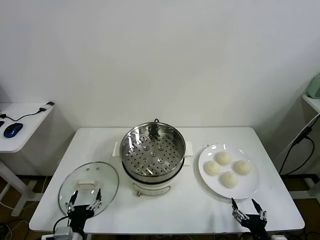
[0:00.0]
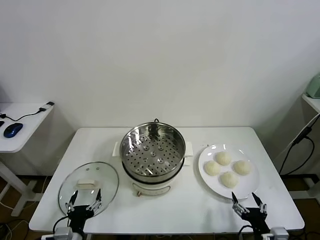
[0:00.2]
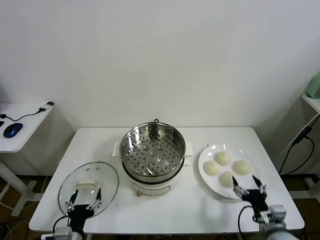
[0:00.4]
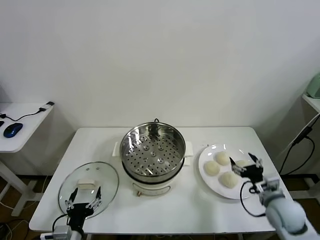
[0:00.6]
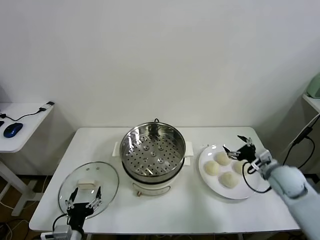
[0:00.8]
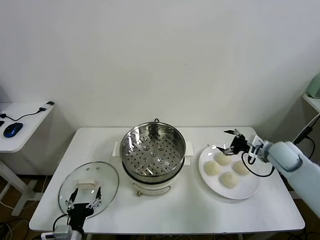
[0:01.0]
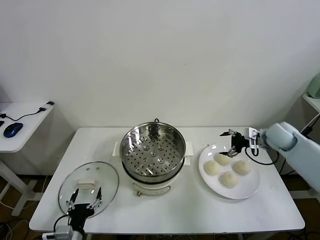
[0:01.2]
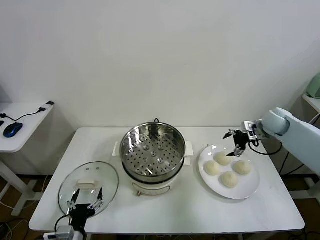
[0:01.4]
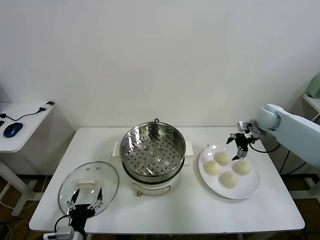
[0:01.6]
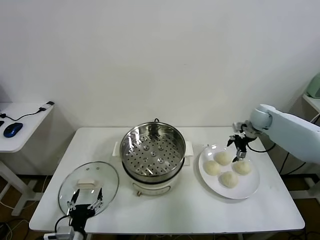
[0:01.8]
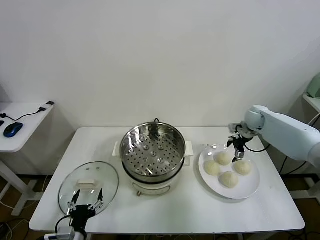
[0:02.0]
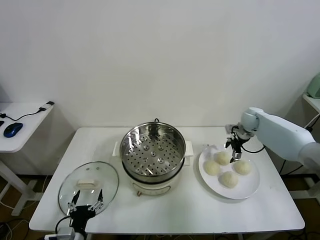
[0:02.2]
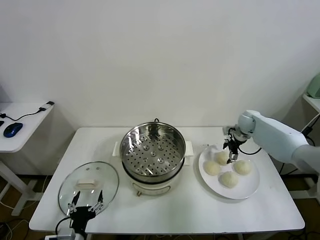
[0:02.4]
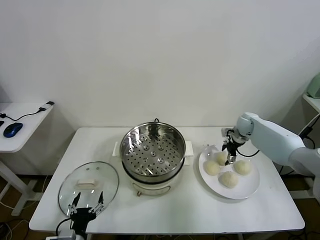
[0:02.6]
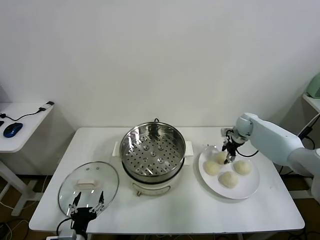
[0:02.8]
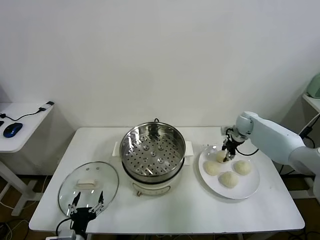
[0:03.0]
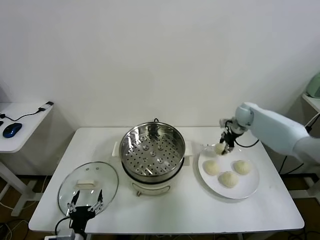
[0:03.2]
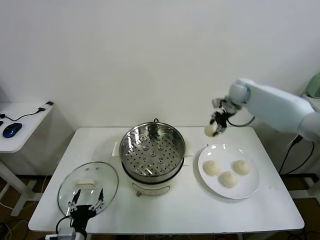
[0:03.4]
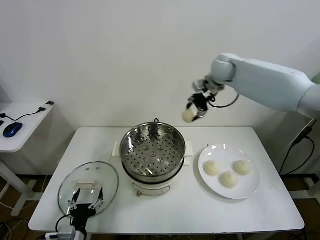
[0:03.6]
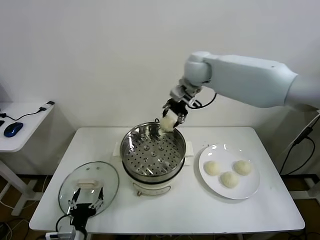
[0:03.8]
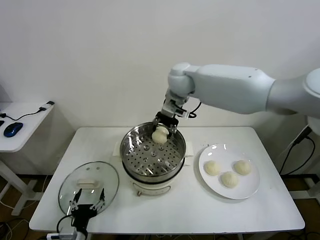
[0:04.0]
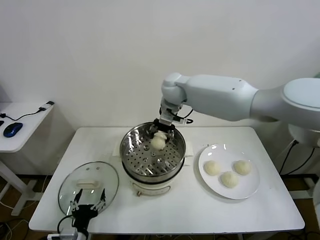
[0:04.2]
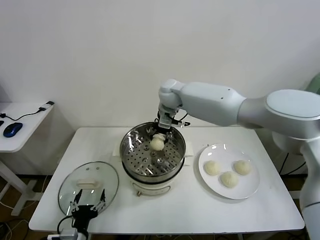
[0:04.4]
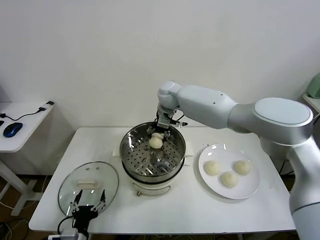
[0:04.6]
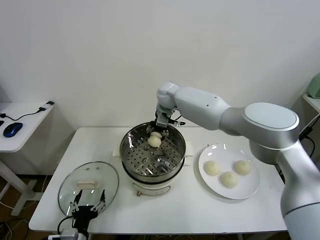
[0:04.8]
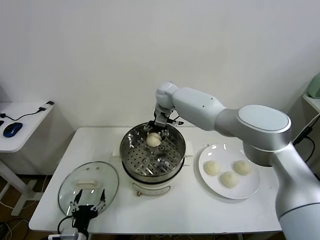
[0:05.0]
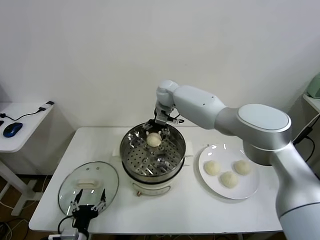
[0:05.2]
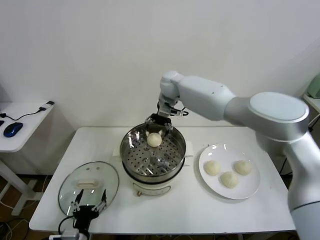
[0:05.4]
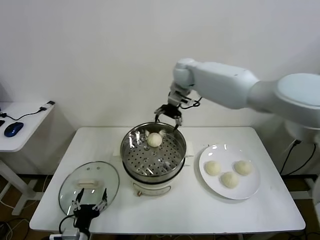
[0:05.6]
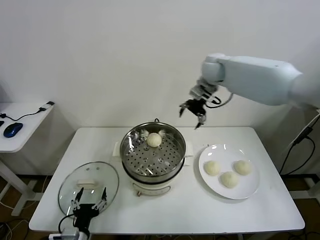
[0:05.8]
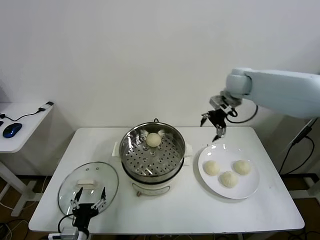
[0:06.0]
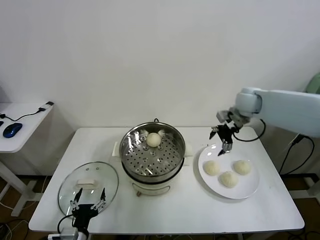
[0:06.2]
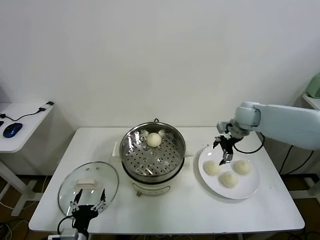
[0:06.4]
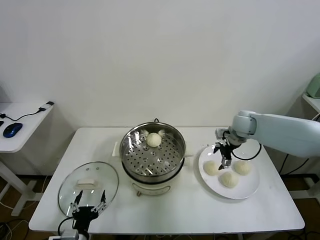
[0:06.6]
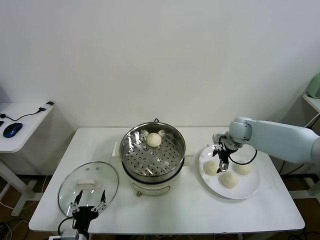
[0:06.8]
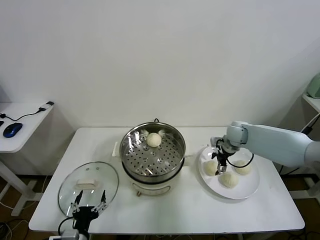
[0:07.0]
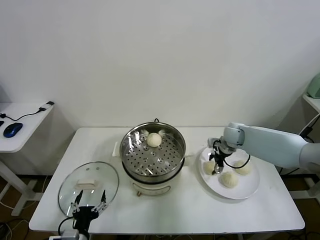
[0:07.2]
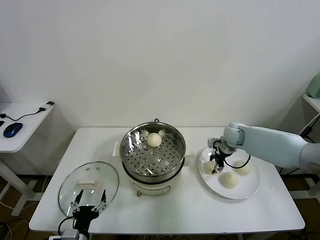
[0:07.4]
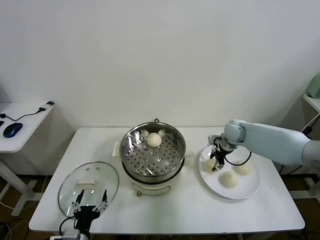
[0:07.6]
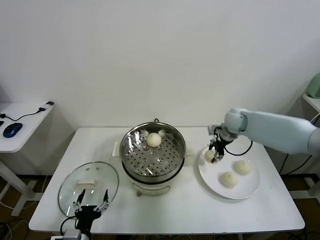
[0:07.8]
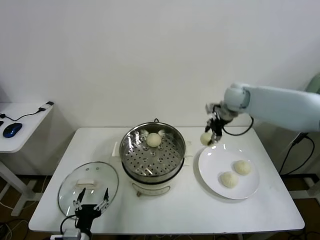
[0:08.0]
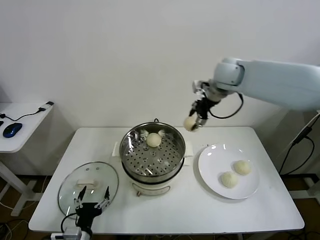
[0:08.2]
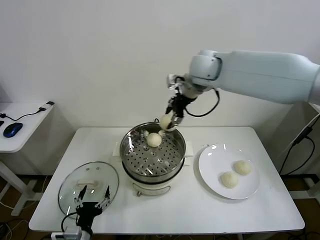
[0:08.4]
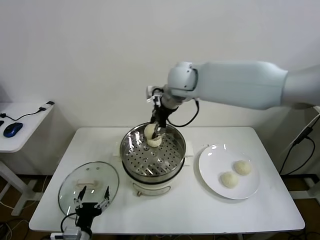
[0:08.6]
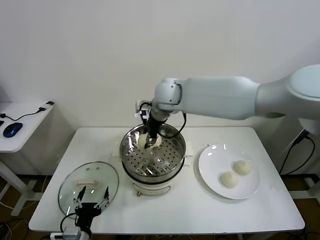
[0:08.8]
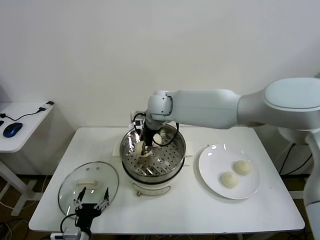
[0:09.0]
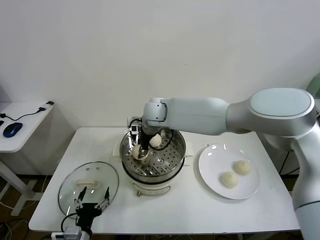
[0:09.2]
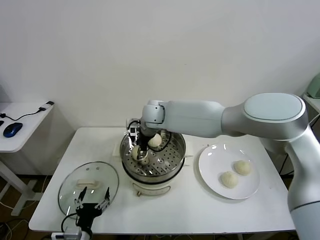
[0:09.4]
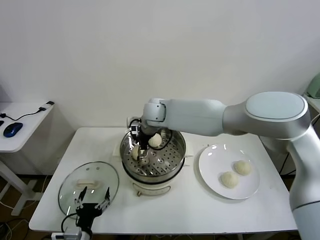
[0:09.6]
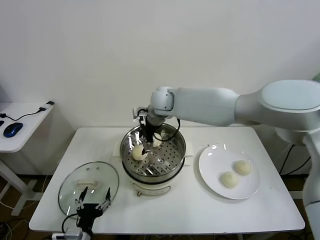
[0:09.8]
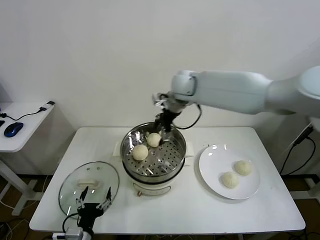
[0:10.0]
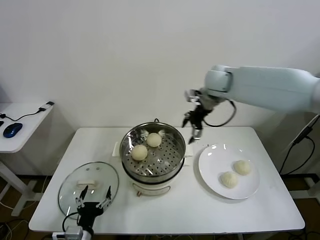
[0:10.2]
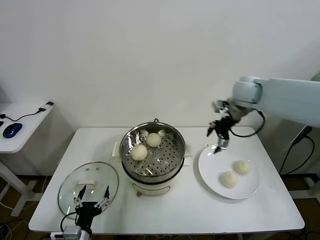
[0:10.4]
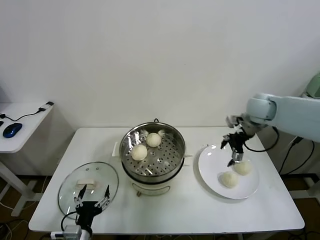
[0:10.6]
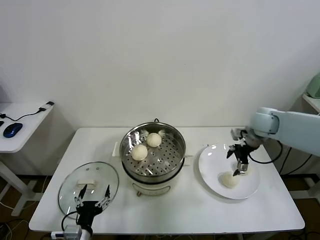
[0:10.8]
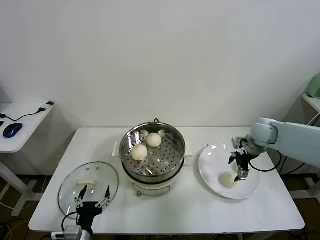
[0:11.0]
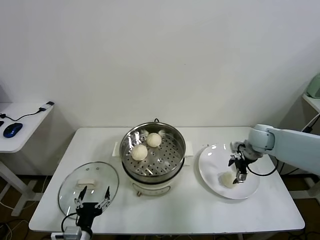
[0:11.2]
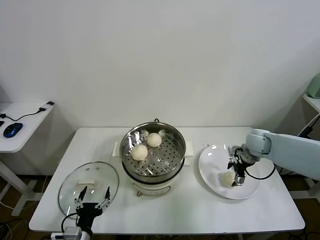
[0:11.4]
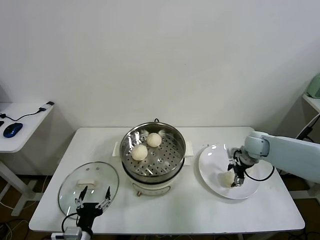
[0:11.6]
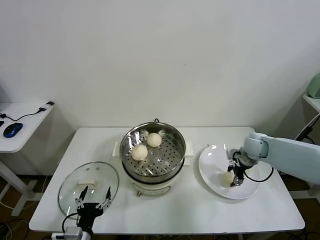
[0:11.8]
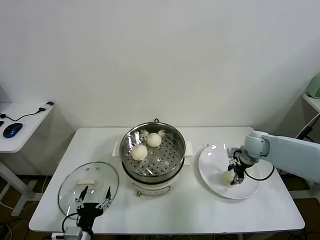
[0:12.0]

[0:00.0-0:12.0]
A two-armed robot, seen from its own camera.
Task of the whole recording: take steamed baozi put them in steamer.
Step, 0:00.0 to 0:02.8: Grasp the baozi in the plate with right gripper.
Step, 0:03.0 to 0:05.4: Place the baozi on the steamer with right gripper.
Step, 0:05.6 to 0:07.4: Grasp the baozi in the plate with right gripper.
Step, 0:07.6 to 0:09.8: Place the baozi on the steamer with right gripper.
Step, 0:10.0 to 0:12.0: Grasp the baozi in the plate with right gripper.
0:01.6 to 0:03.0: The right gripper shifts by some 5 cm, and closes its fingers.
0:03.0 to 0:04.4: The right gripper heads to the left and upward, covering about 35 cm.
0:04.4 to 0:06.0: The right gripper shifts roughly 25 cm to the right, and opens its fingers.
0:06.0 to 0:07.6: The right gripper shifts some 15 cm downward, and closes.
0:07.6 to 0:09.0: The right gripper moves to the left, approximately 30 cm.
0:09.0 to 0:10.4: The right gripper moves to the right, roughly 30 cm, and opens its fingers.
0:10.4 to 0:12.0: The right gripper moves downward, some 15 cm, and closes its fingers.

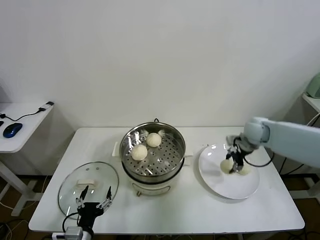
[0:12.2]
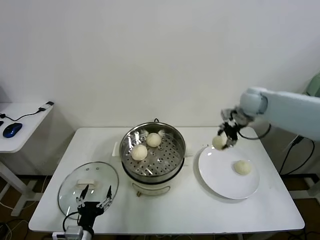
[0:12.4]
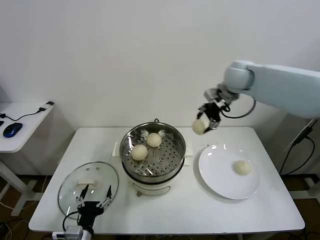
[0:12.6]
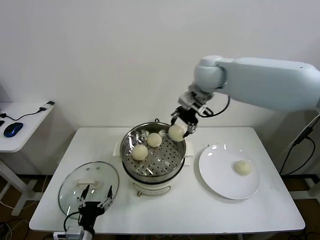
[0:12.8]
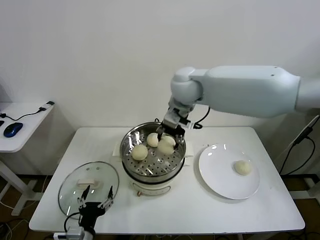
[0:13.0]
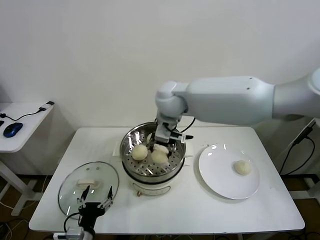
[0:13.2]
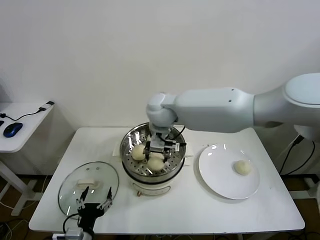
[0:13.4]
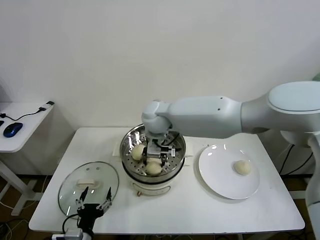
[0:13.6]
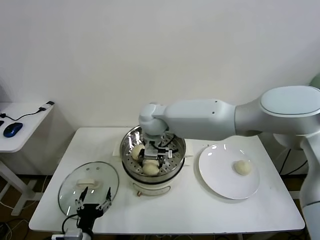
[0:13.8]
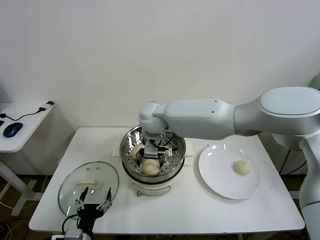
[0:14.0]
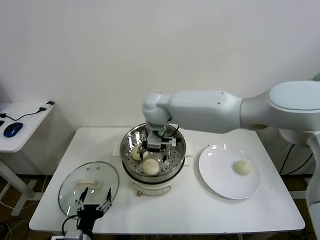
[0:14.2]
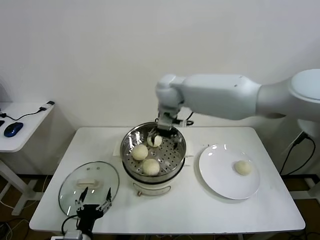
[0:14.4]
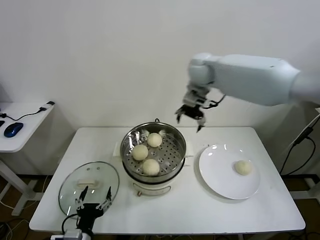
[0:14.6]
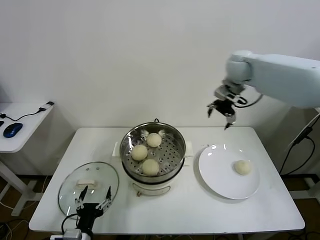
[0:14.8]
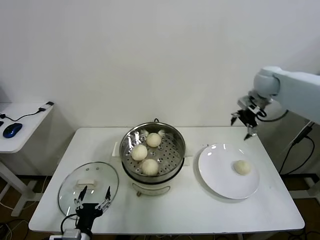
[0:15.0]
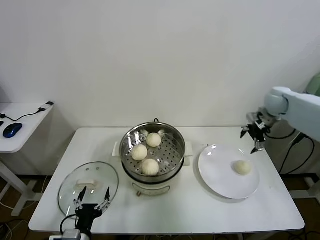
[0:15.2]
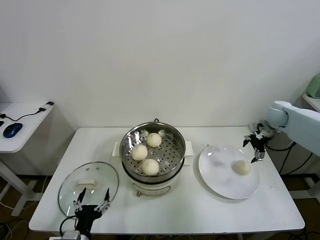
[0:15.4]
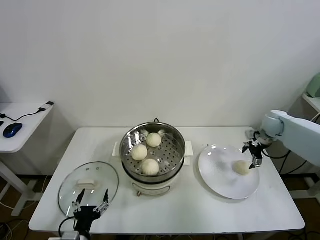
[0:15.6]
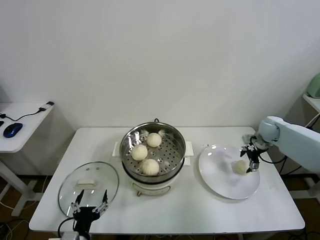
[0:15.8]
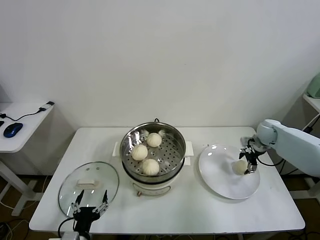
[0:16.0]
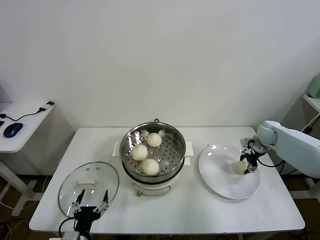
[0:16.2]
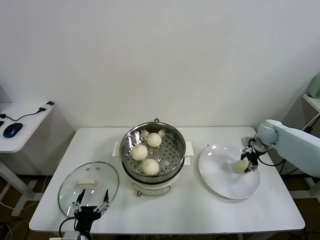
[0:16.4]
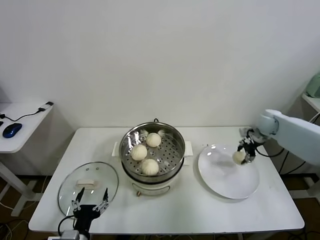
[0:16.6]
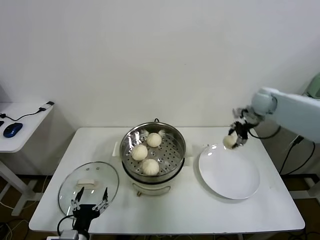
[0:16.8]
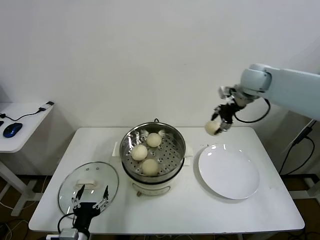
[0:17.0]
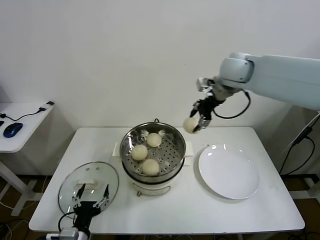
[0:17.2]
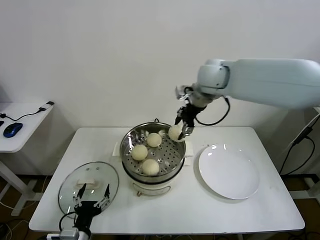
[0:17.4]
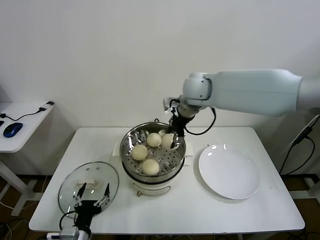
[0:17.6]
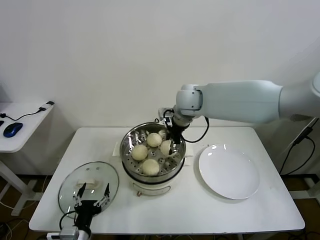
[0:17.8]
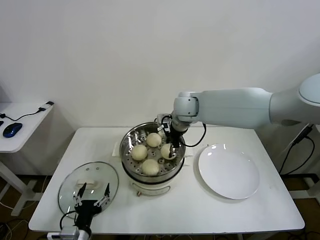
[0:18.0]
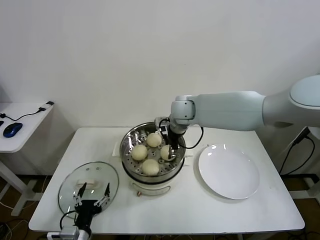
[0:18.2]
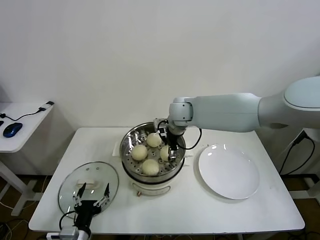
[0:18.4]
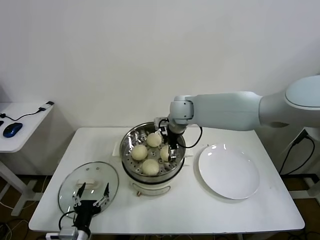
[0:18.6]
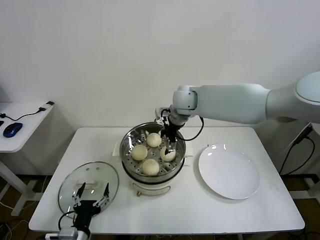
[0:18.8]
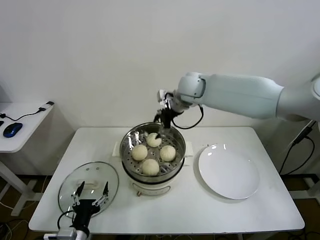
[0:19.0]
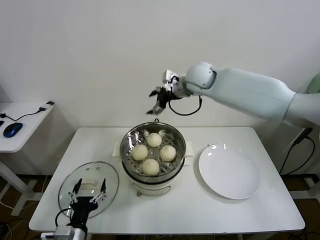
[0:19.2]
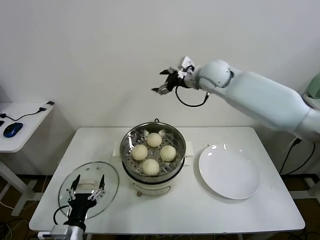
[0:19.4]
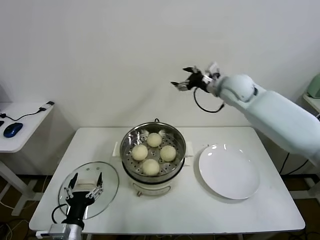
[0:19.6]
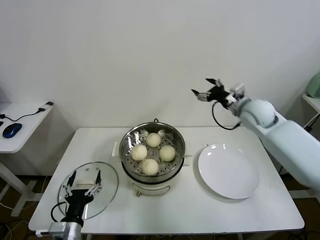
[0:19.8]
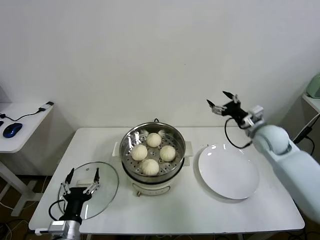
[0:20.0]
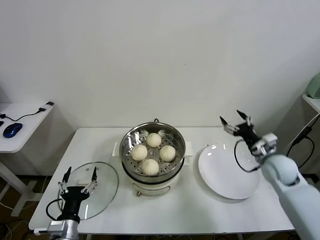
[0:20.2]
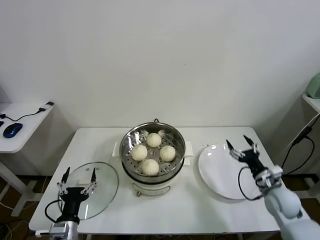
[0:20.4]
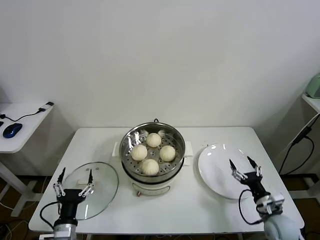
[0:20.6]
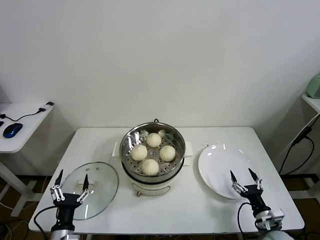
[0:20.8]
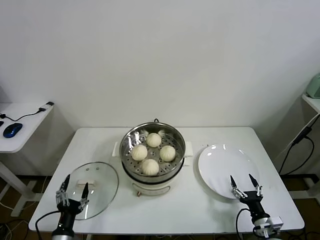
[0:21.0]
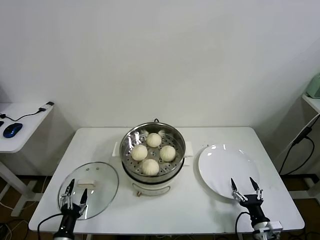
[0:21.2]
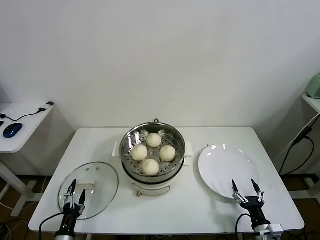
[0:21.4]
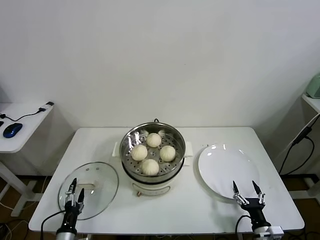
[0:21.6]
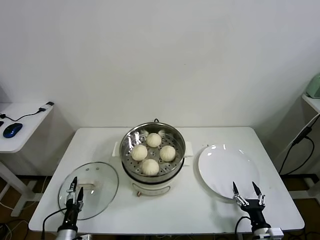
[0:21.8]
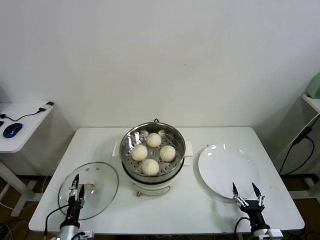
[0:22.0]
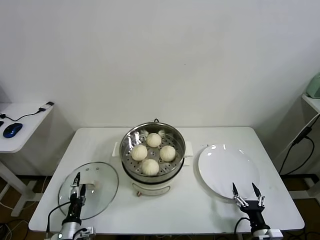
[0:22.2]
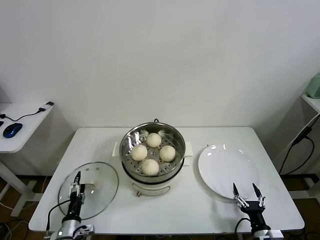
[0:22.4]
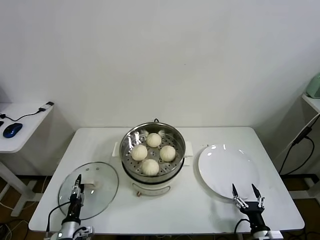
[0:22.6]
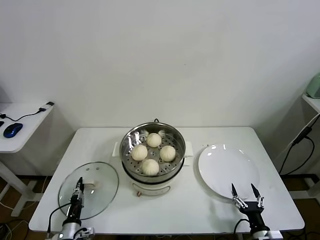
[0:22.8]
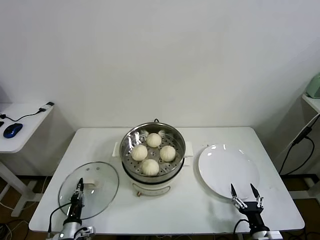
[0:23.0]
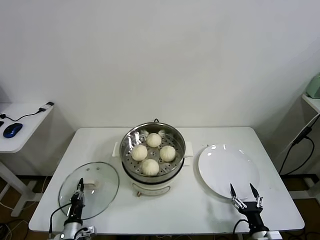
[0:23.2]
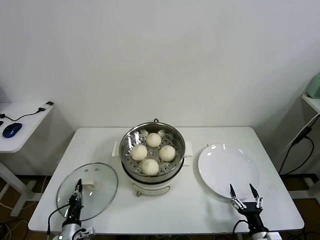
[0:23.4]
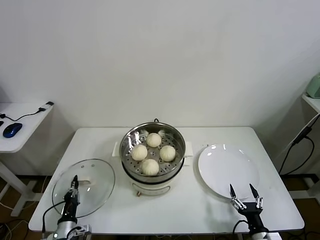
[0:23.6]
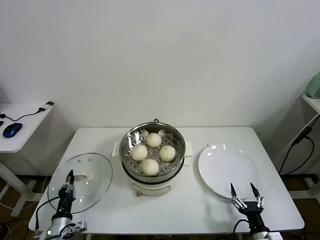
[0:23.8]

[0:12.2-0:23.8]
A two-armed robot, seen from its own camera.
Task of the whole recording: take steamed baozi put them in steamer.
Step, 0:12.2 to 0:14.0: Place the baozi on the steamer with right gripper.
Step, 0:14.2 to 0:16.2: Grasp the baozi in the plate with right gripper.
Step, 0:16.6 to 0:18.6: Place the baozi on the steamer with right gripper.
Step, 0:18.8 to 0:23.2: Grasp the pot lid with left gripper.
0:12.2 to 0:13.6: The right gripper shifts some 35 cm to the left.
0:13.6 to 0:15.0: The right gripper is displaced to the right by about 40 cm, and opens up.
0:15.0 to 0:16.6: The right gripper heads downward, covering roughly 10 cm, and closes its fingers.
0:16.6 to 0:18.0: The right gripper shifts roughly 30 cm to the left.
0:18.0 to 0:19.4: The right gripper goes some 15 cm to the right and upward, and opens.
0:19.4 to 0:21.0: The right gripper moves downward, backward and to the right, about 60 cm. The left gripper shifts approximately 10 cm downward and to the left.
0:21.0 to 0:22.4: The left gripper heads downward and forward, covering approximately 10 cm.
0:22.4 to 0:23.8: The left gripper closes its fingers.
